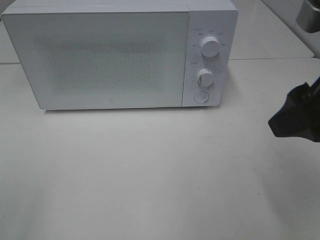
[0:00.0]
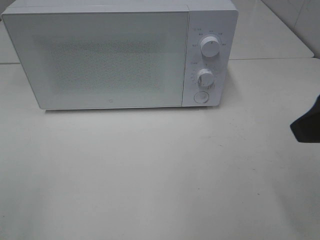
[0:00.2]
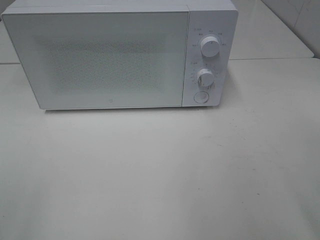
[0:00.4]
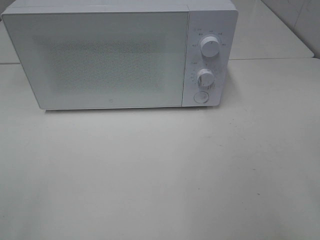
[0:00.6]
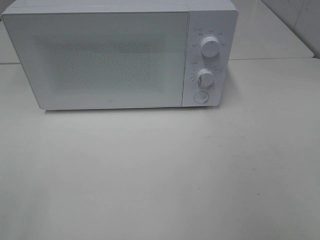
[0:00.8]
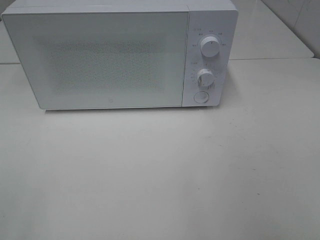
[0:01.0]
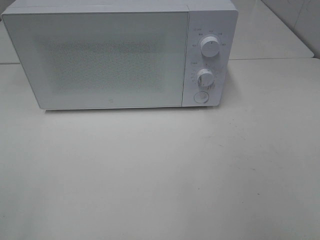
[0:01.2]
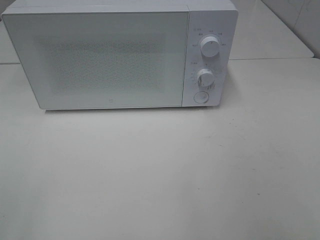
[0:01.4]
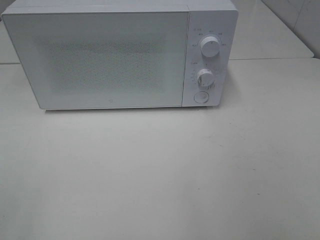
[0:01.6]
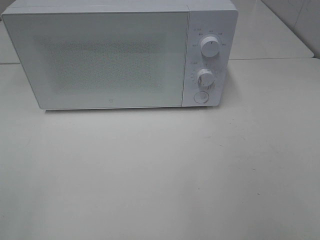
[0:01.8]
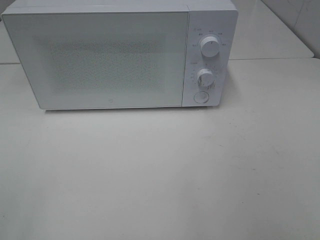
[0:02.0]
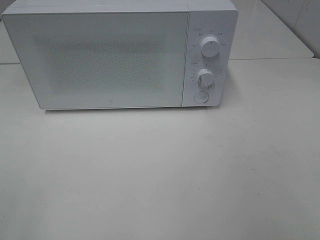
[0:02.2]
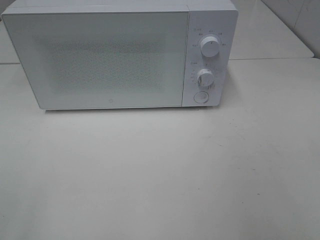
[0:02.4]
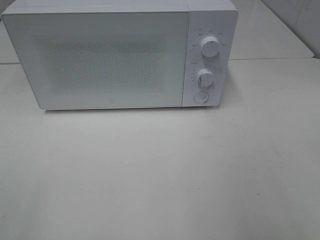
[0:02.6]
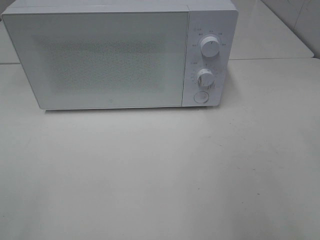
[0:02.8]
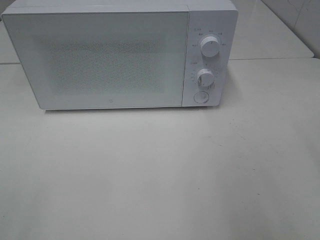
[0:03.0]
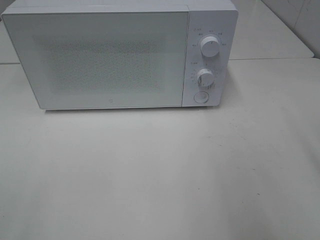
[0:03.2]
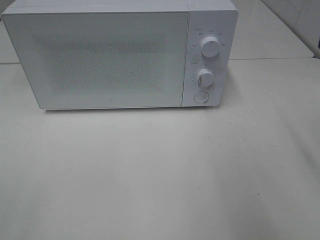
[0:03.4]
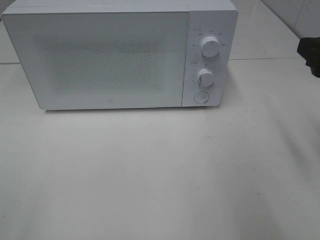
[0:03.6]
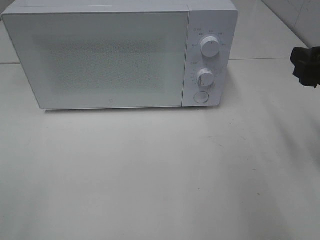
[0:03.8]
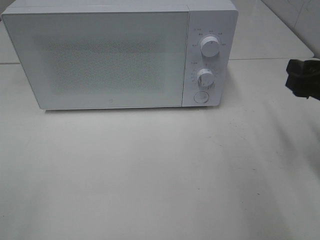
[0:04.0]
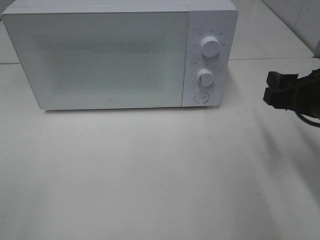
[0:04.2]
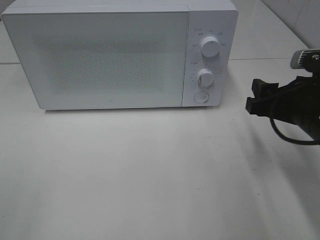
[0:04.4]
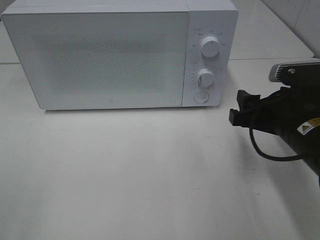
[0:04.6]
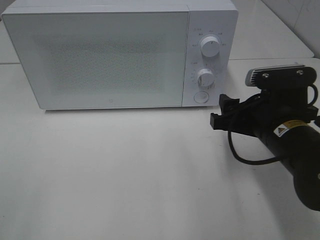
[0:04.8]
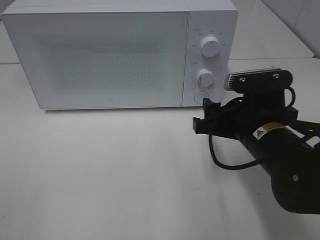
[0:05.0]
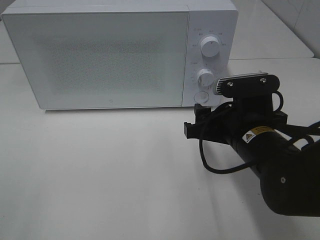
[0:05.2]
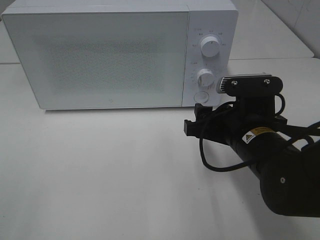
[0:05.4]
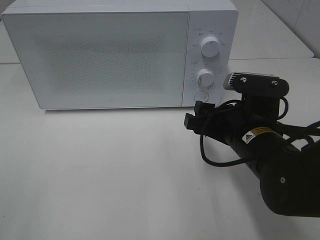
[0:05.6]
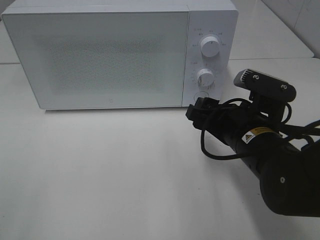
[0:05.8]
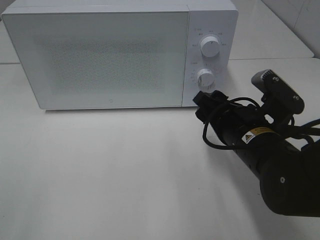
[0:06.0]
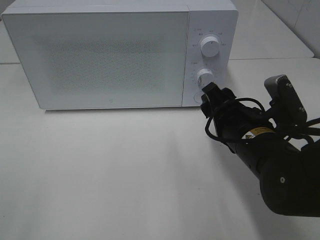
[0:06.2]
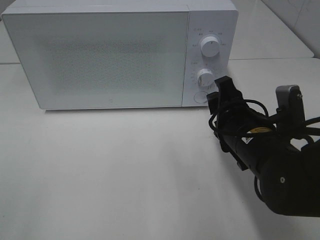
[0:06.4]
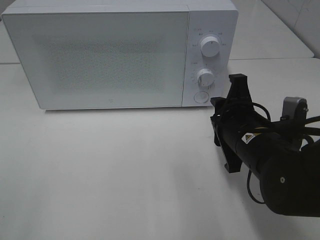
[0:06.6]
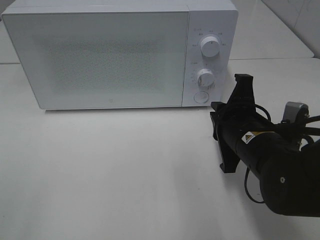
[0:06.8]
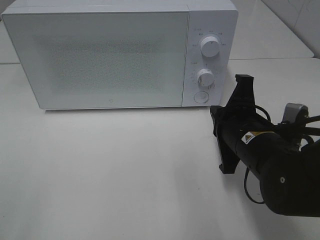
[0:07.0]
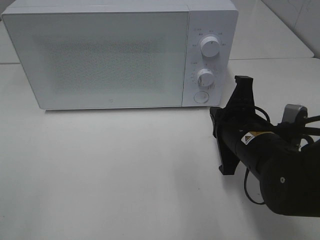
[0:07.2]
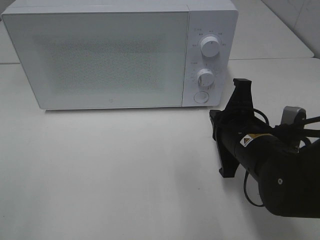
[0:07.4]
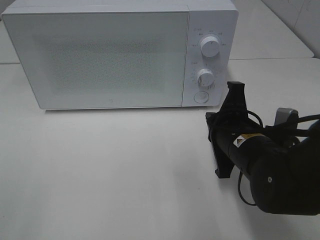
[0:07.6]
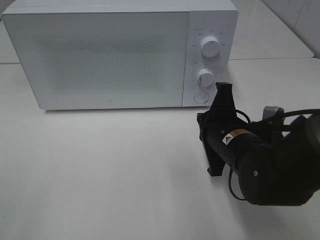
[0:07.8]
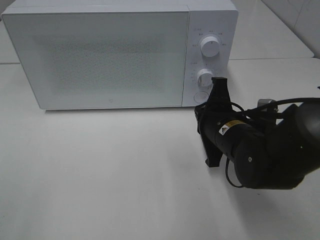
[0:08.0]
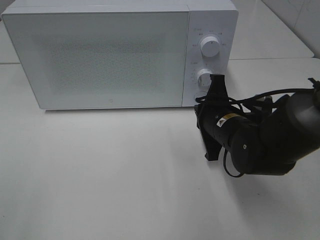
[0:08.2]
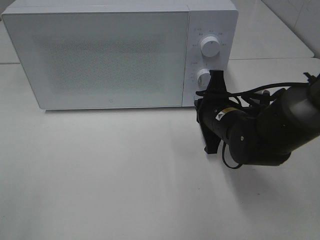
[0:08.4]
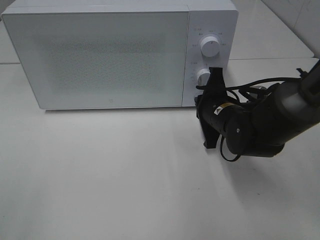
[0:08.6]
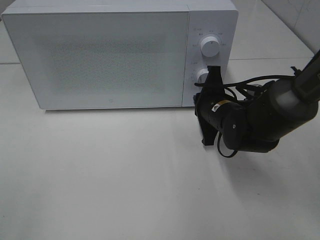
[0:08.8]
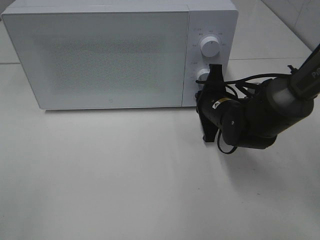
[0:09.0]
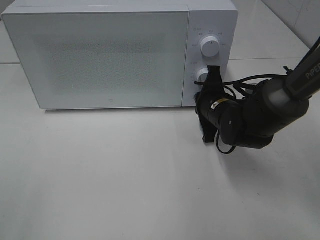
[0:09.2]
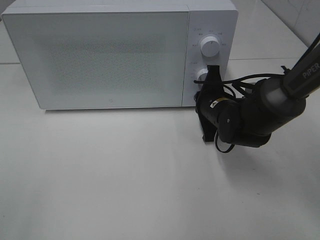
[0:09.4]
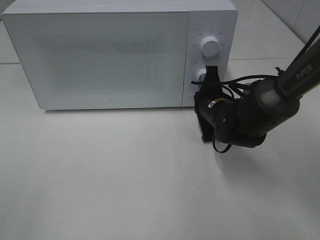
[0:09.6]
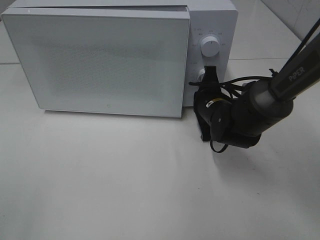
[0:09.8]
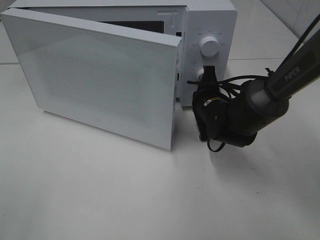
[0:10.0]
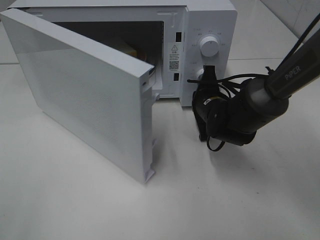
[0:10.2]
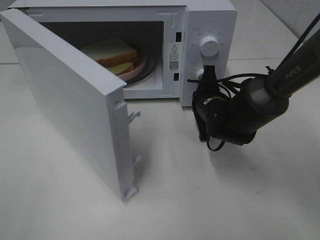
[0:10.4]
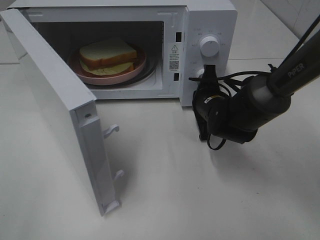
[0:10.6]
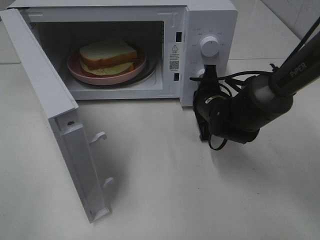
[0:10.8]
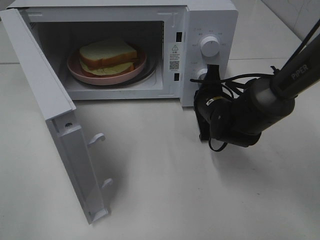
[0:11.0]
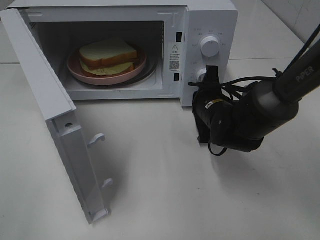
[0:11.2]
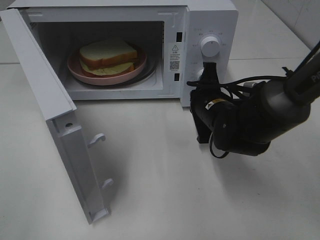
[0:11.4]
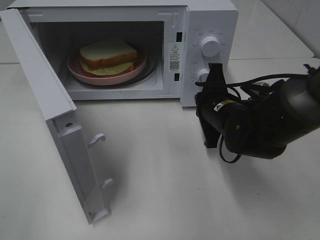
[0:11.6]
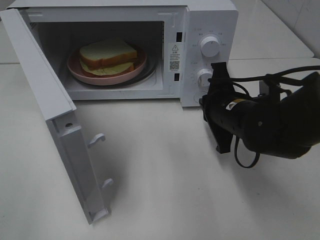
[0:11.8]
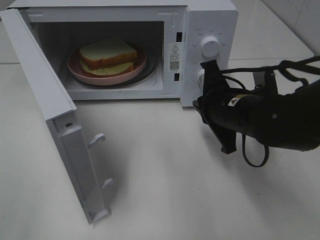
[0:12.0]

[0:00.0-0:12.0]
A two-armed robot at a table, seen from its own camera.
Task of the whole recording: Heat Sandwich.
Step, 0:00.0 to 0:11.8: Right hand: press the switch.
0:00.0 to 0:01.6: The right gripper goes about 20 cm backward and to the right.
0:03.0 to 0:04.4: The right gripper goes some 20 cm downward, forward and to the left.
0:04.4 to 0:06.0: The right gripper heads to the left, covering about 10 cm.
0:06.0 to 0:07.6: The right gripper closes.
0:07.6 to 0:09.0: The right gripper moves forward, about 10 cm.
0:10.4 to 0:12.0: The right gripper moves backward and upward, approximately 10 cm.

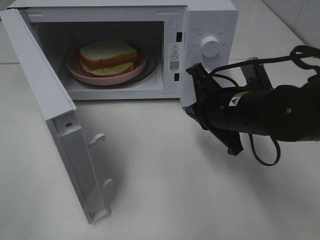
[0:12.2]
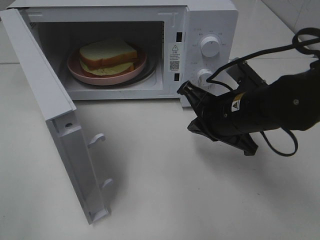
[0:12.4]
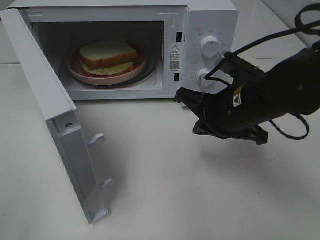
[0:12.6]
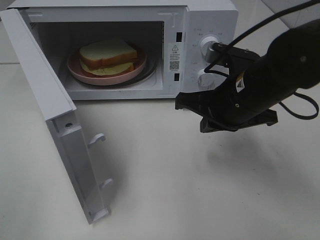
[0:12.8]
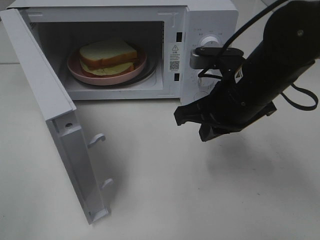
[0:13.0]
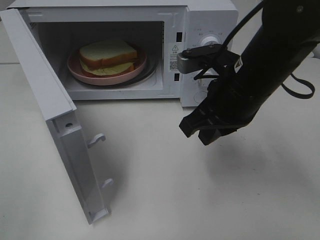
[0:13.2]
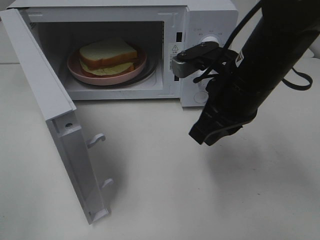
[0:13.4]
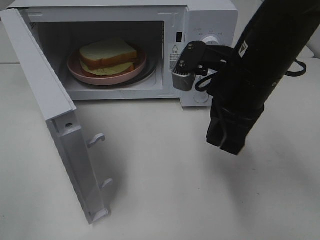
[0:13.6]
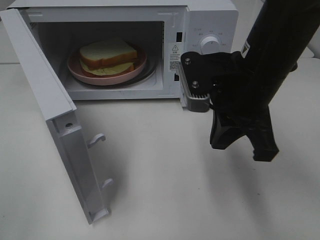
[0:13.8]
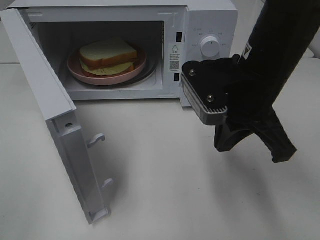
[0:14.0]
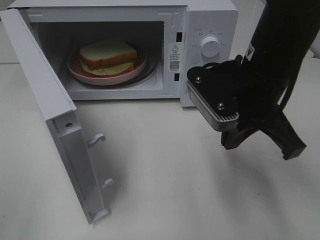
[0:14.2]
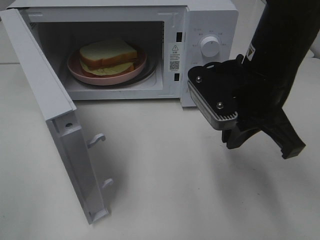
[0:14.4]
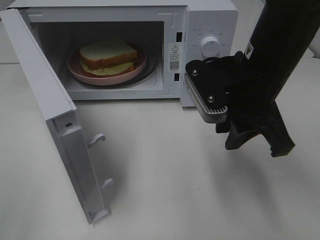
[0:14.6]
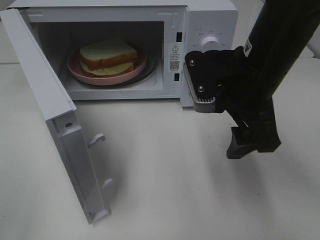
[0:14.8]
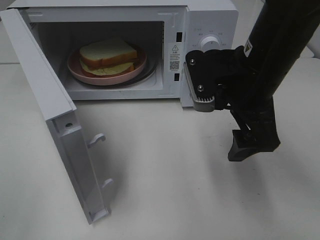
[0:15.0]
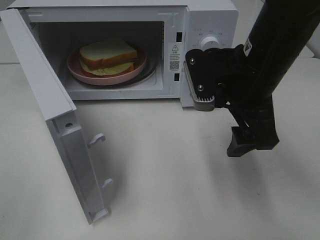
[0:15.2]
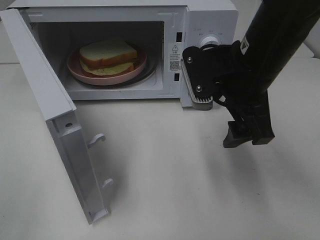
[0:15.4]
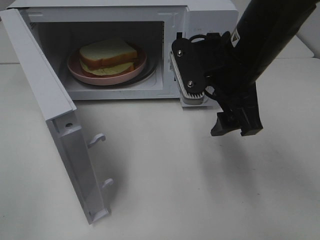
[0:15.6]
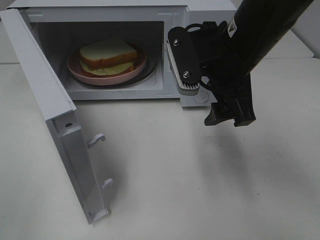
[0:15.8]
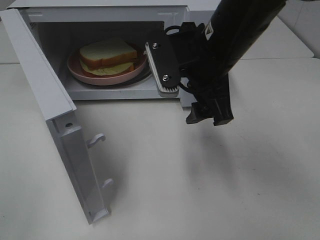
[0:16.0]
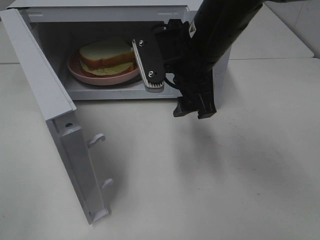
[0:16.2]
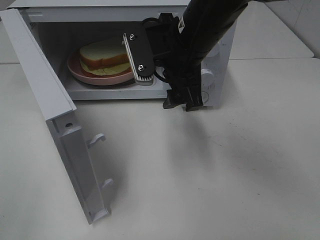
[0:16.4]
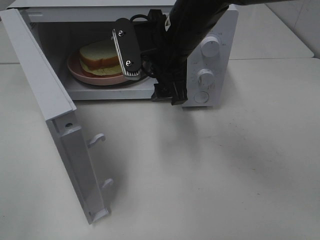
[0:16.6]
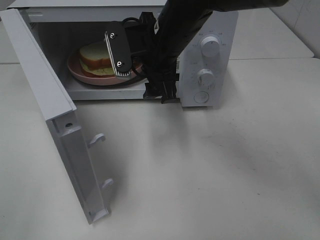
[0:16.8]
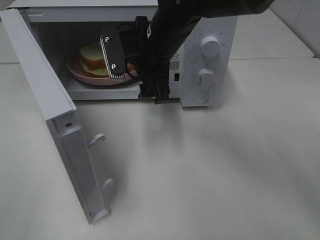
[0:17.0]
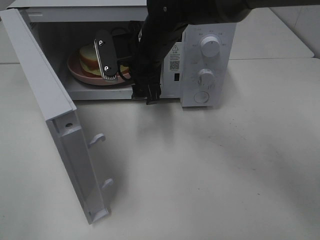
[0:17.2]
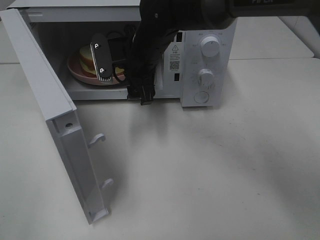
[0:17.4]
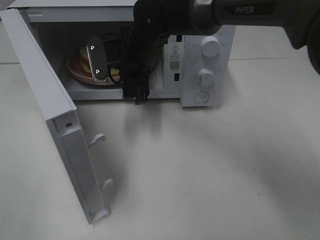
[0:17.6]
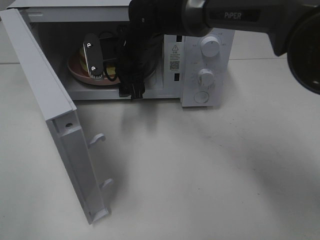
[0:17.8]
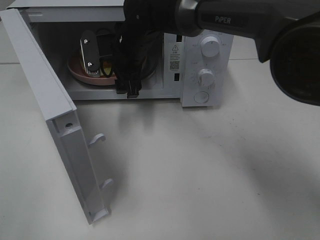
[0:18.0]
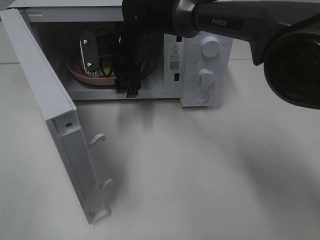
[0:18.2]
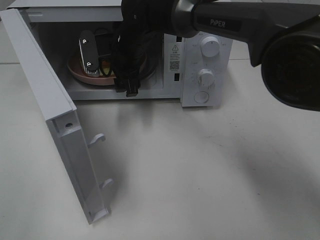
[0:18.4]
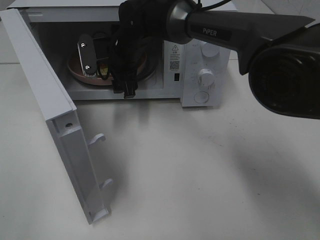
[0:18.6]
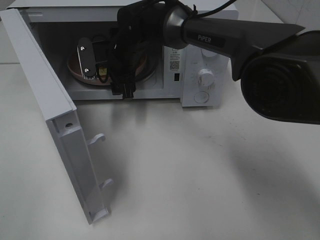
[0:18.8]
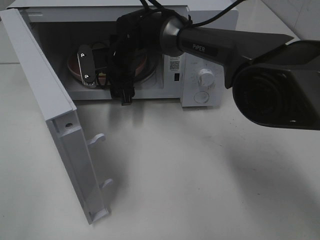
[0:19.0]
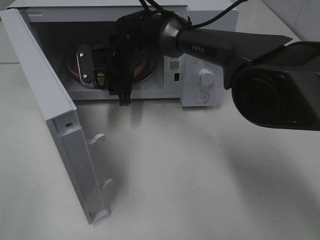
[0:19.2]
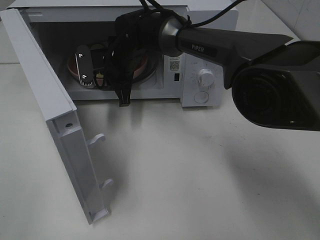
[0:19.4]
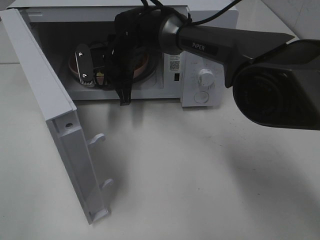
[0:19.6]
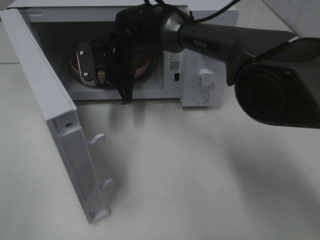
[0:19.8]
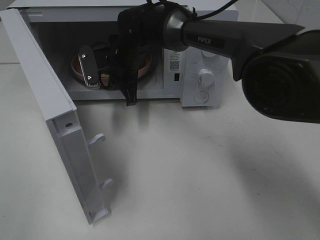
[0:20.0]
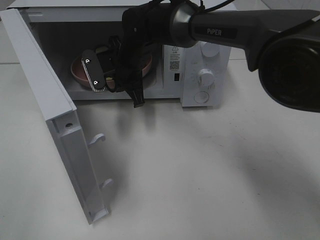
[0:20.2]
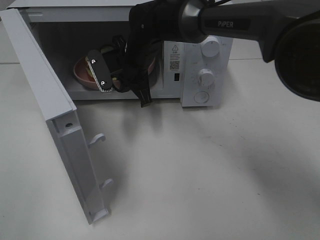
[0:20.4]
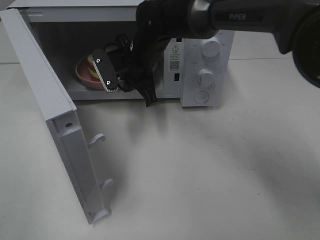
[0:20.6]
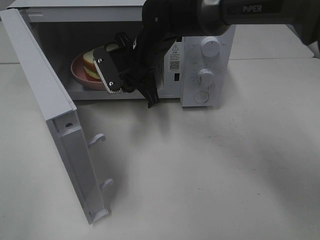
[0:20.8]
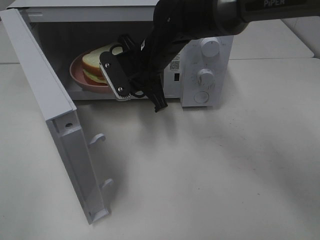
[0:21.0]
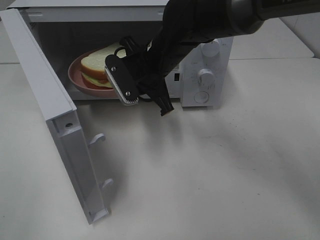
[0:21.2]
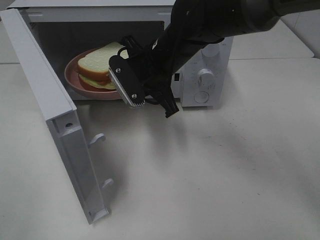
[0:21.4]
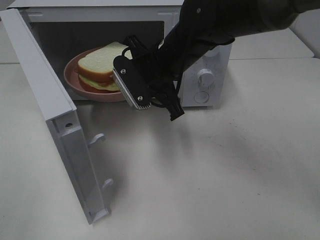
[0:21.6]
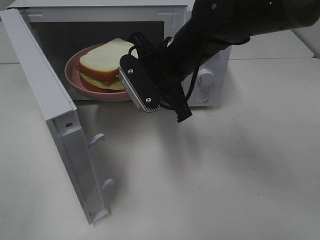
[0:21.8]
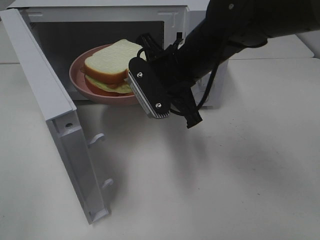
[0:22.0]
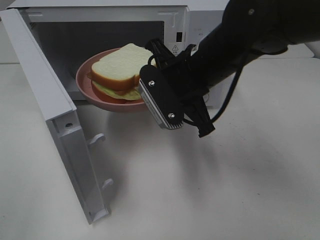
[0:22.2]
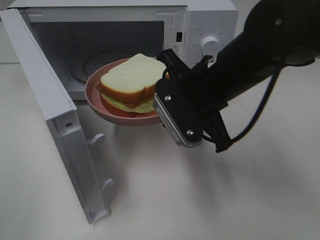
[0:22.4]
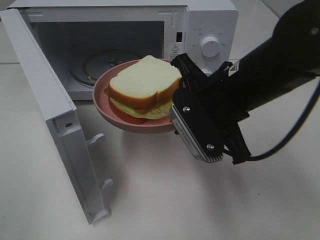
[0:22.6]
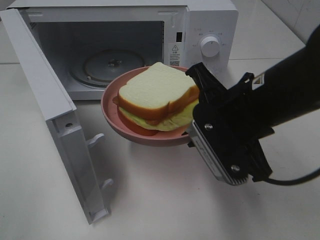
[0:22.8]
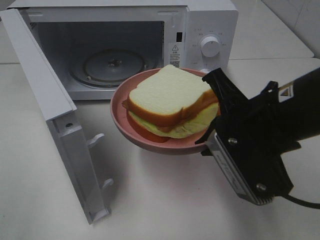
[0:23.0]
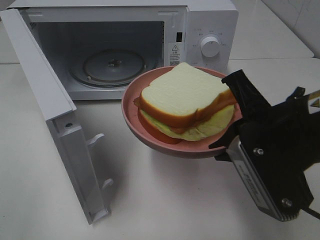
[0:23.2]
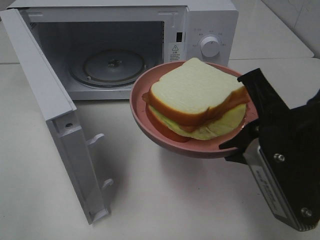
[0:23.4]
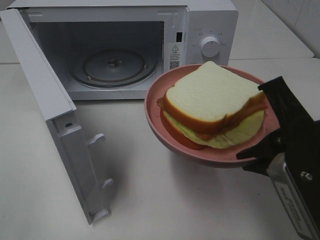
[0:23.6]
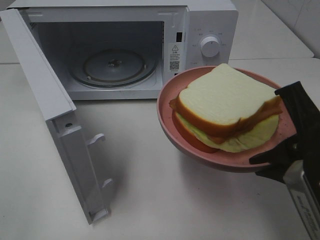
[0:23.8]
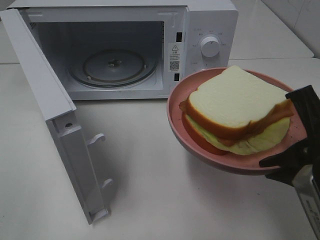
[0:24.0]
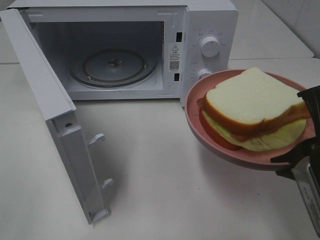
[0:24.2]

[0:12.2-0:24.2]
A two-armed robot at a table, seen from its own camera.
Task of the whole recording: Heat Sandwich.
Step, 0:12.2 to 0:19.6: Right hand: grab the plate with the sandwich.
0:12.2 to 0:13.8: The right gripper heads upward, covering approximately 10 cm.
0:13.8 to 0:15.2: The right gripper opens up.
0:15.2 to 0:16.6: The right gripper goes about 10 cm to the left and forward.
0:16.6 to 0:18.2: The right gripper goes roughly 15 cm forward, to the left and downward.
0:18.2 to 0:19.8: The right gripper closes up.
0:19.8 to 0:21.2: The right gripper shifts about 10 cm backward and to the right.
0:21.2 to 0:22.6: The right gripper heads backward and to the right, covering some 15 cm.
0:22.6 to 0:24.2: The right gripper moves backward and to the right, approximately 15 cm.
